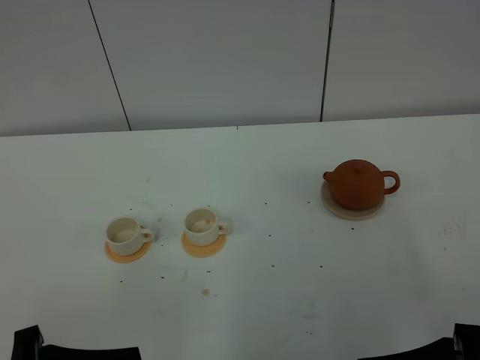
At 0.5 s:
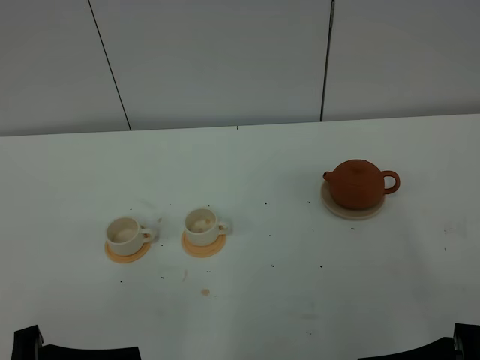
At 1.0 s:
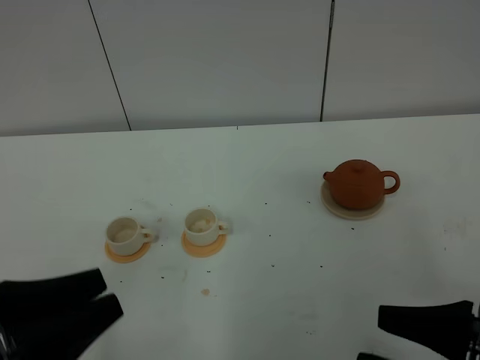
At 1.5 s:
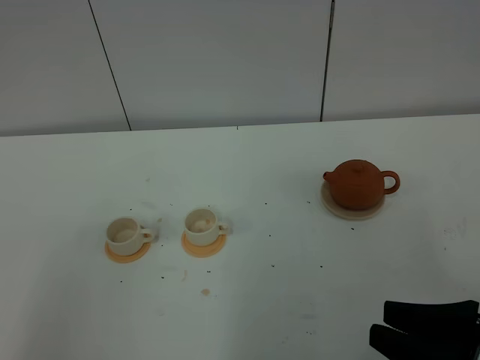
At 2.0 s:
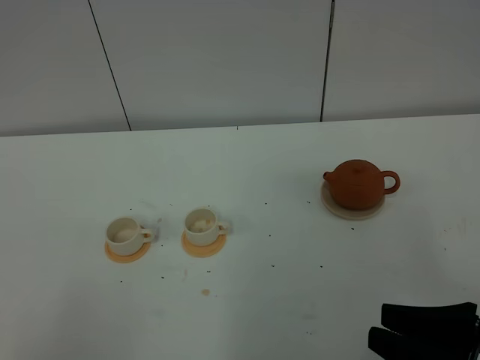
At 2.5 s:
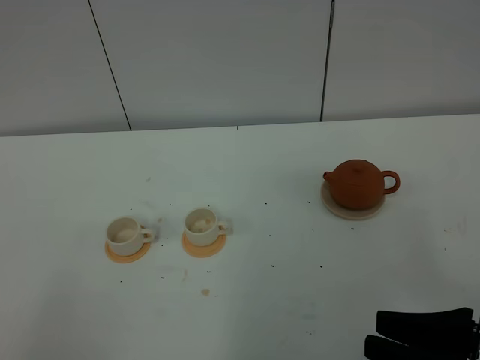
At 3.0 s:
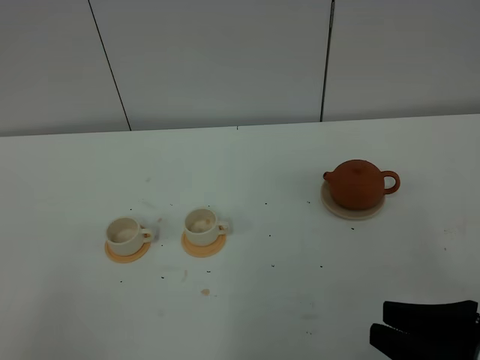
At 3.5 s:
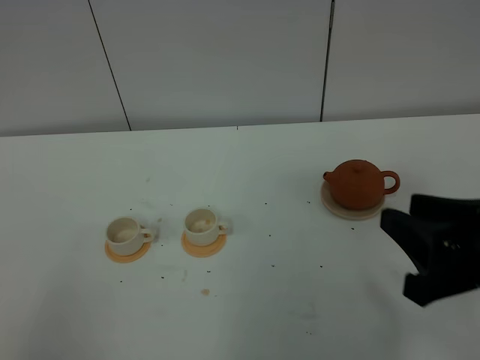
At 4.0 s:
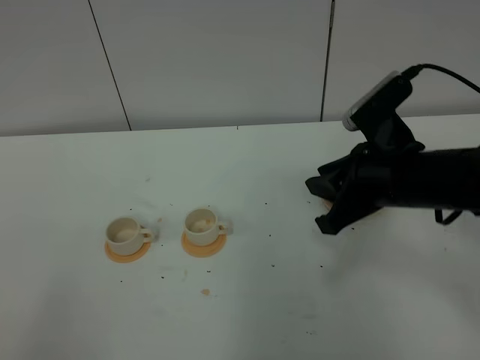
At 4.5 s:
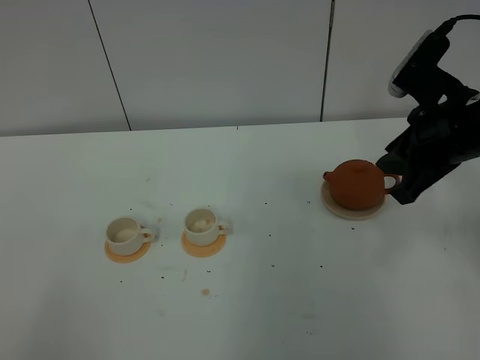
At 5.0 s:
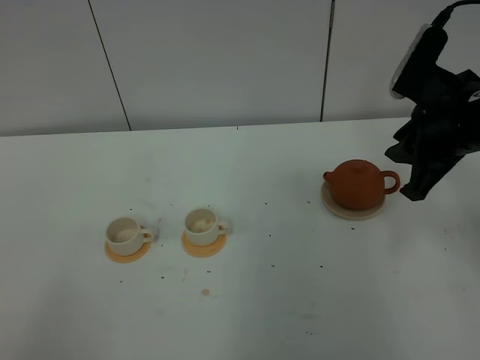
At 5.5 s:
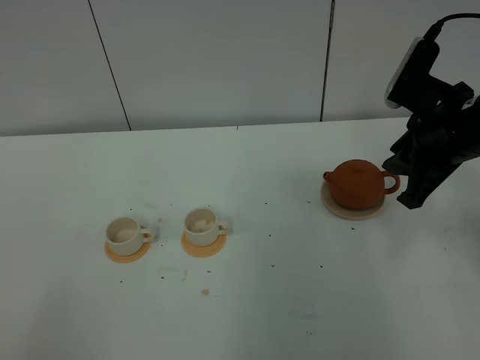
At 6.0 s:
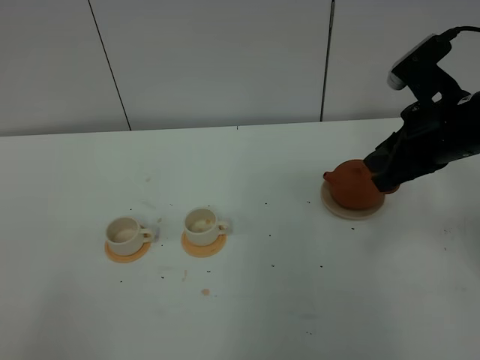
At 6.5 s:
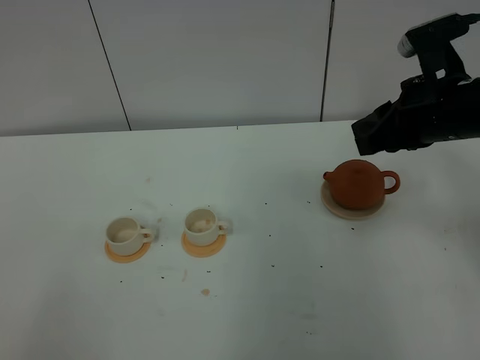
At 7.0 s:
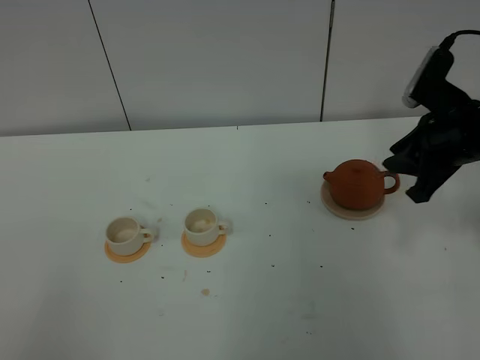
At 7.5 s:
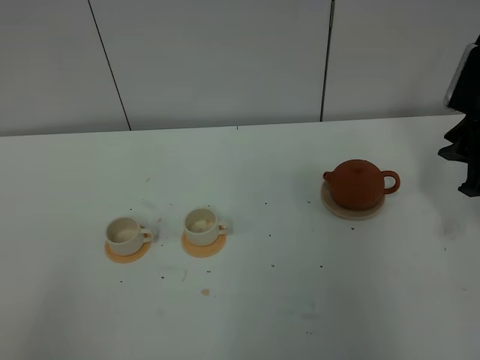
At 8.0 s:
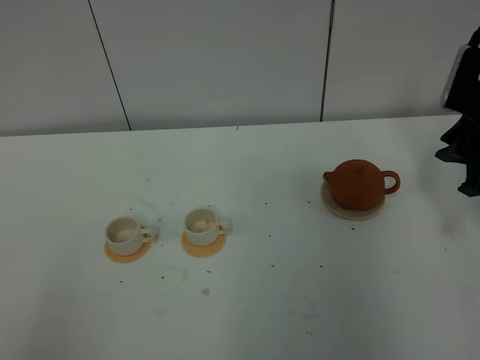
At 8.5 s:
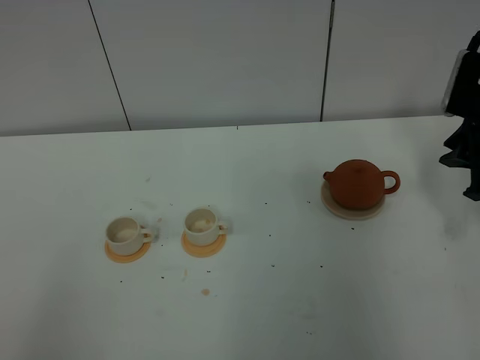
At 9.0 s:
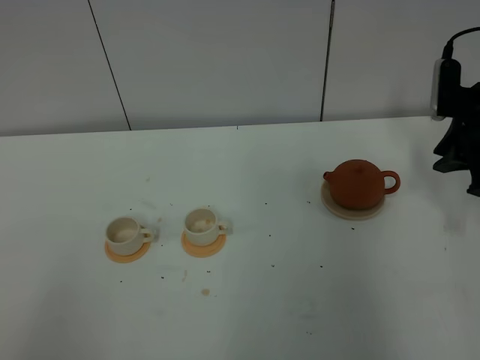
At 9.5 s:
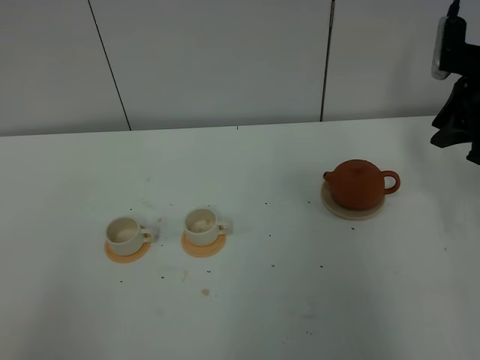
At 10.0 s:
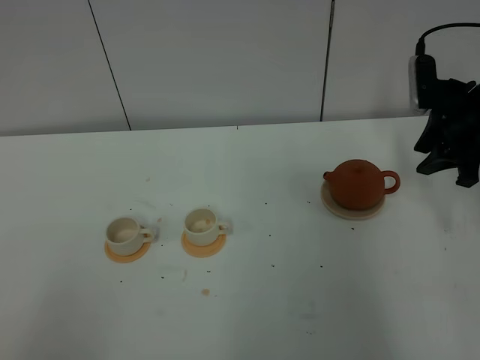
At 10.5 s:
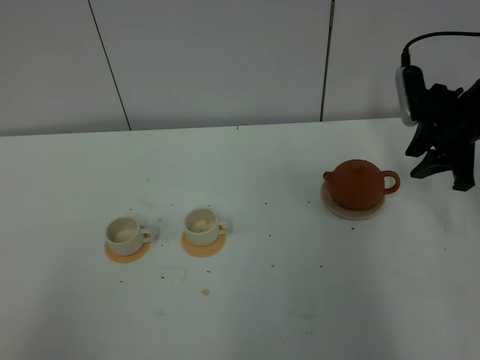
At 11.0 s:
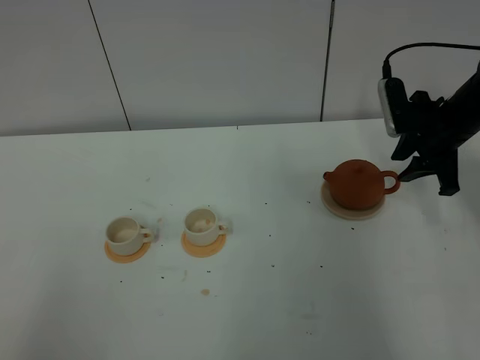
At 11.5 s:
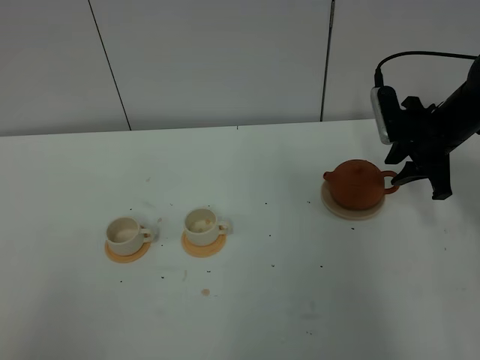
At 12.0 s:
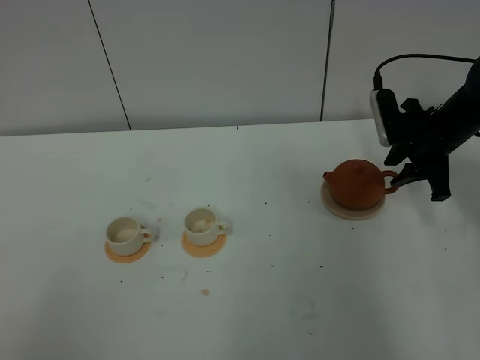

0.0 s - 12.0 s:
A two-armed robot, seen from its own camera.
Task of the whole recording: grasp the brown teapot and pour the tea into the two white teacups one by one, put the brown teapot back in its original place.
0.0 s - 2.0 s: The left gripper heads backward and to the left, covering approximately 10 cm, reaches approximately 15 cm upward, then returns, and closes up. The right gripper closes.
2.0 s - 4.0 s: The right gripper is displaced forward by approximately 20 cm, and opens and closes again.
4.0 s - 6.0 s: The right gripper moves to the right, some 5 cm.
6.0 s - 8.0 s: The right gripper travels to the right and forward by some 10 cm.
8.0 s - 10.0 s: The right gripper goes about 5 cm forward, and opens up.
10.0 s - 12.0 s: The right gripper changes place by some 5 cm.

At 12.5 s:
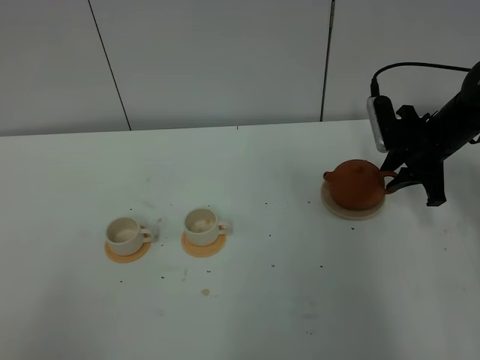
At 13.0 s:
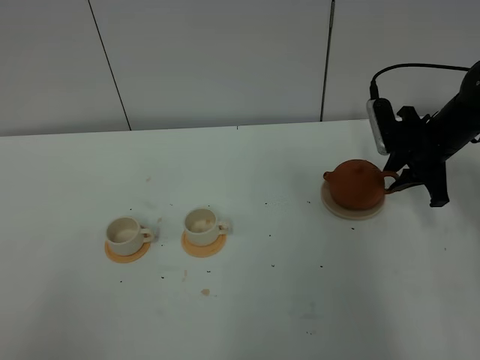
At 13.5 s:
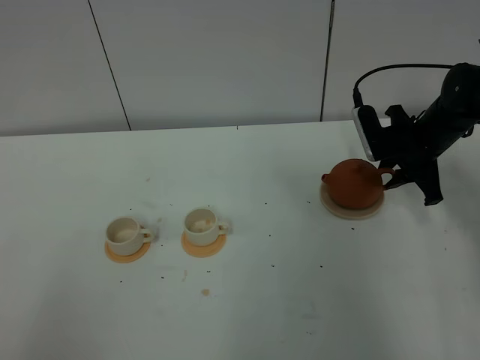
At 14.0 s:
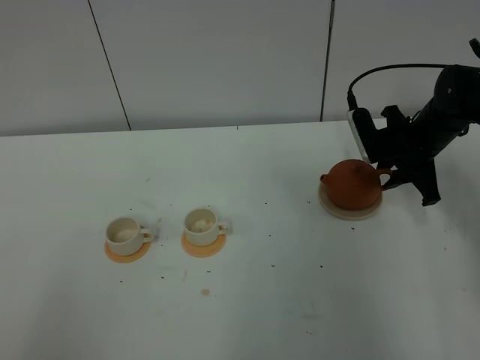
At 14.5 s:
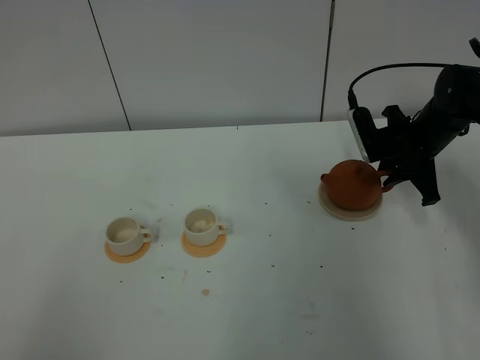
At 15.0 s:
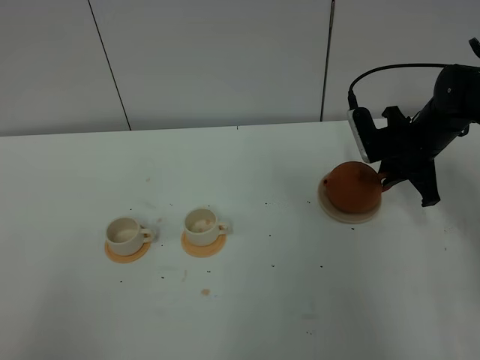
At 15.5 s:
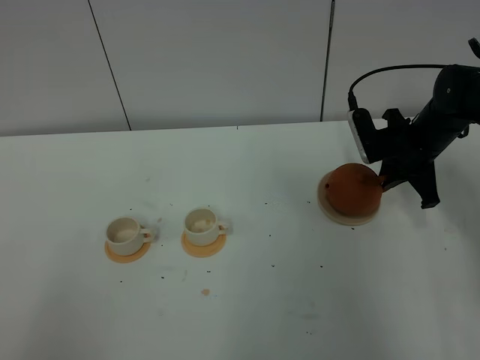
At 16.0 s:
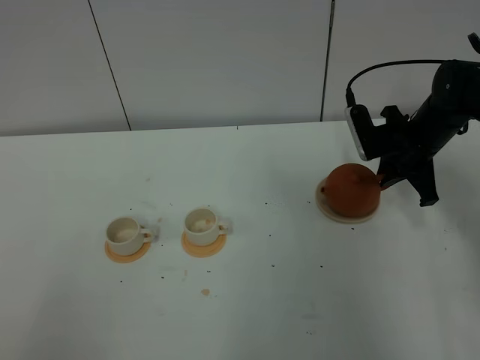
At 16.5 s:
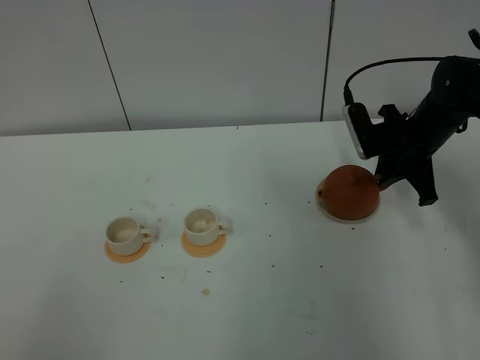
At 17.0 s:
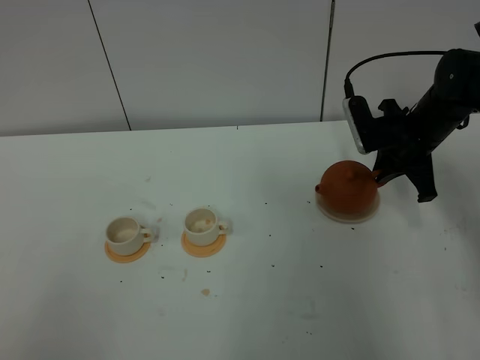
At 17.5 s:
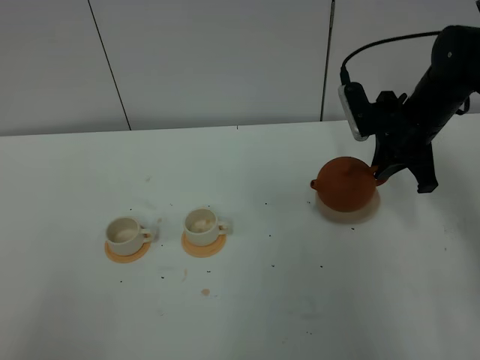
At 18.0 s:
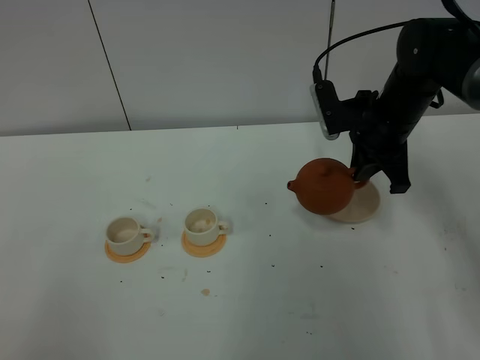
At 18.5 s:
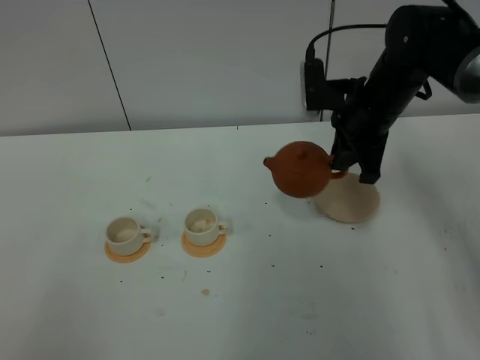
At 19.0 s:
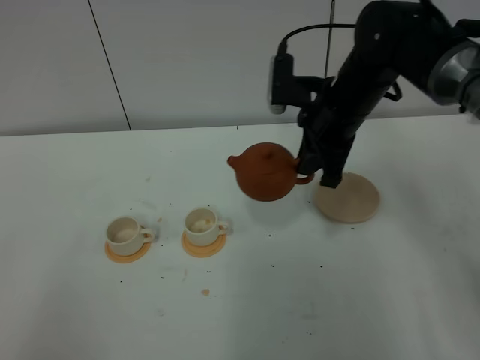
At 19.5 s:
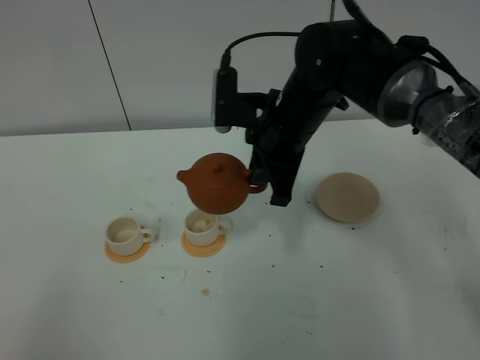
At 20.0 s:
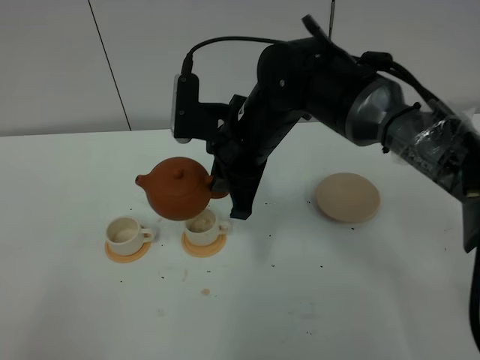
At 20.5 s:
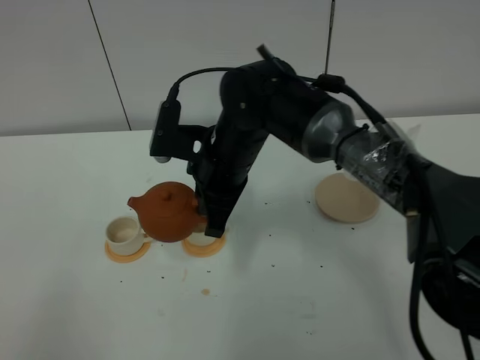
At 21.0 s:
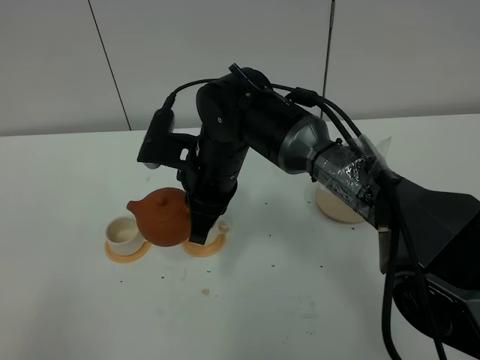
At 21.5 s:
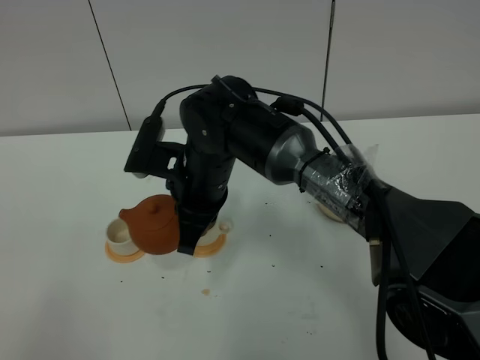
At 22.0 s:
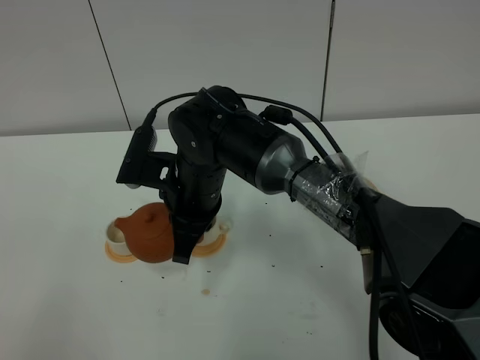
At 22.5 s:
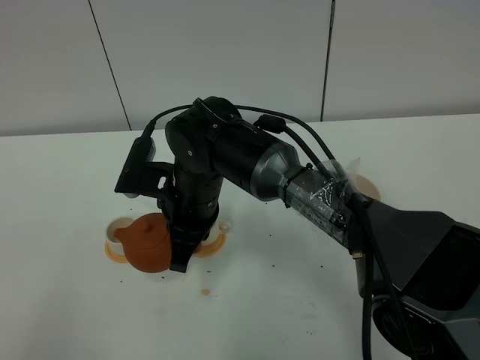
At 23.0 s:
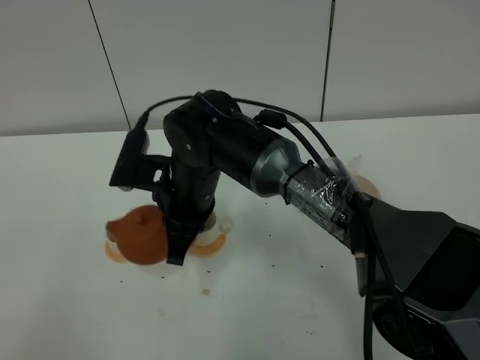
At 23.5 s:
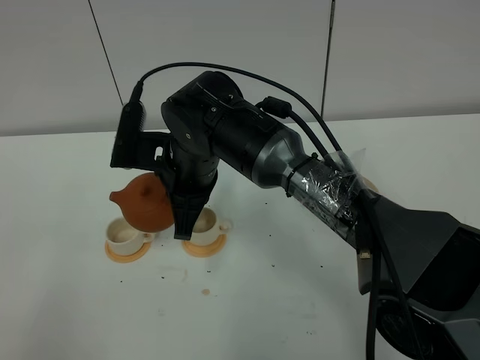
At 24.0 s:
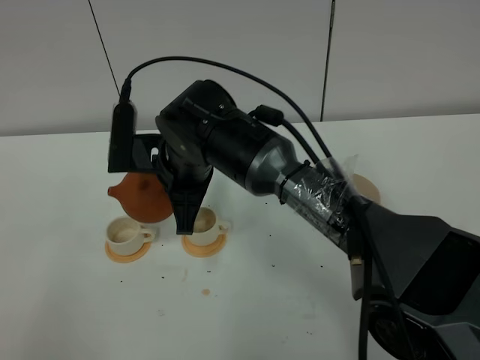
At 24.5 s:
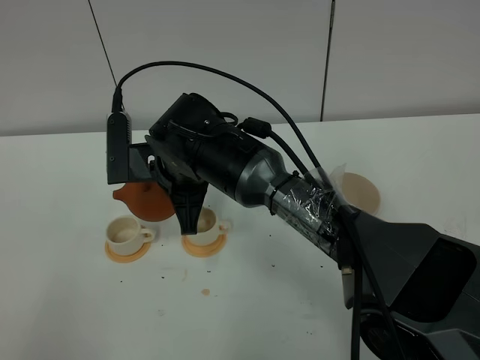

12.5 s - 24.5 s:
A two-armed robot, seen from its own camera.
Task of the whole recording: grasp the brown teapot and pour the tea into the two white teacups one by one, put the brown teapot back in its original place.
Step, 12.5 s - 18.0 s: Pick up the teapot with the right gripper.
12.5 s - 14.5 s: The grippers make only small movements.
14.5 s - 16.5 s: The right gripper closes.
16.5 s - 18.5 s: The right gripper moves to the left and upward, roughly 10 cm.
18.5 s - 20.5 s: The right gripper goes roughly 20 cm to the left.
20.5 s - 22.5 s: The right gripper moves approximately 5 cm.

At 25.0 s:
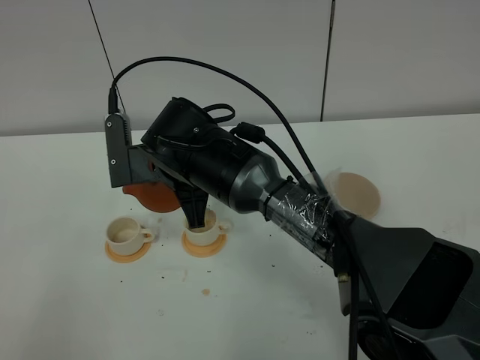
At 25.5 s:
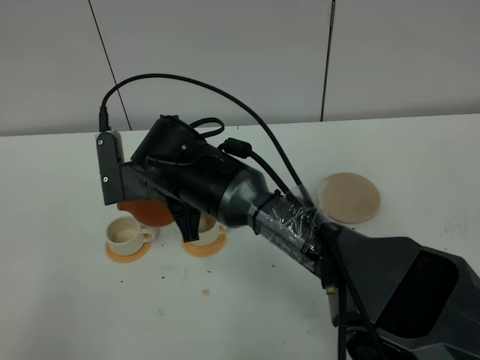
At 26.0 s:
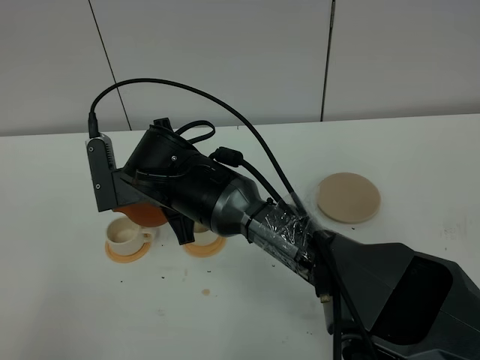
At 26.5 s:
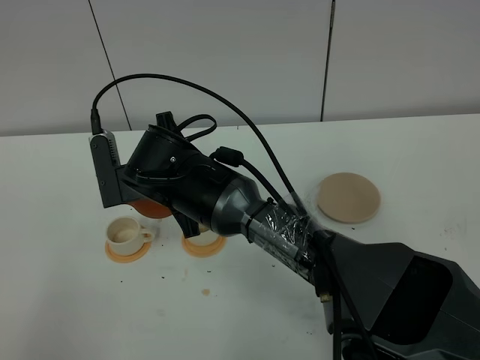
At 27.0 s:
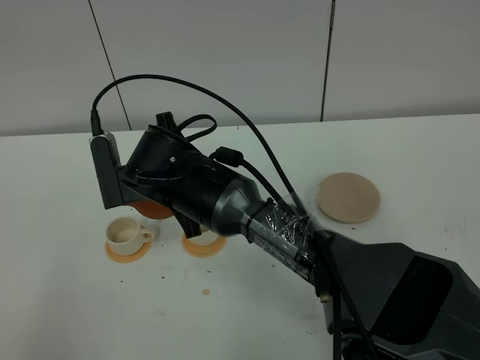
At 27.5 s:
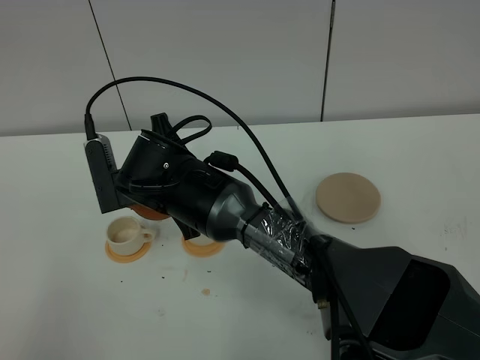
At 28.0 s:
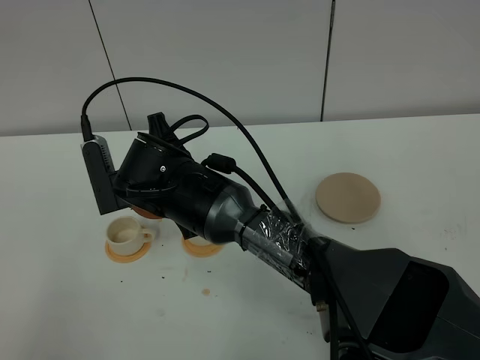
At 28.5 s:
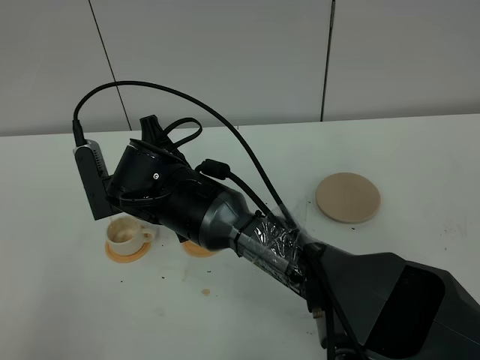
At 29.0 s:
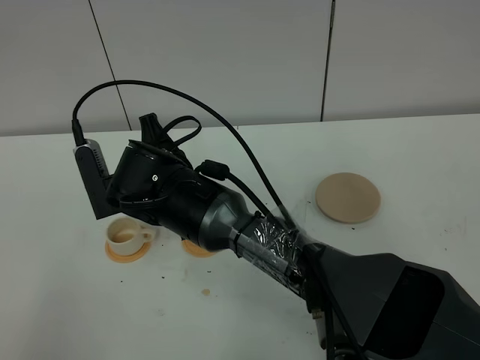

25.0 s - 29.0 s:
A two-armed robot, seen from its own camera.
Task of the whole recording: grasp the brown teapot and pour the tea into the two white teacups one by one, put the brown teapot back in its original place.
25.0 s - 29.0 s: There are only small adjustments of the grippers.
